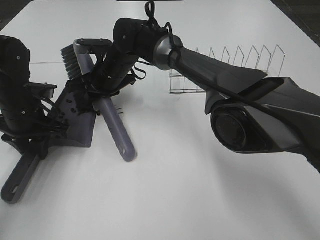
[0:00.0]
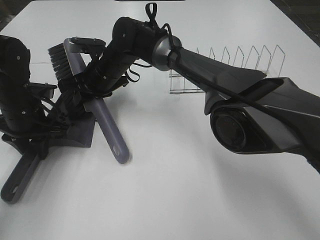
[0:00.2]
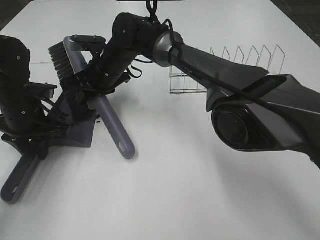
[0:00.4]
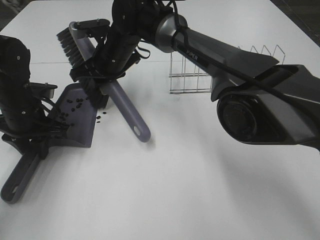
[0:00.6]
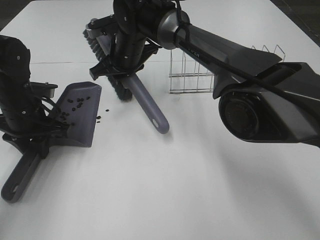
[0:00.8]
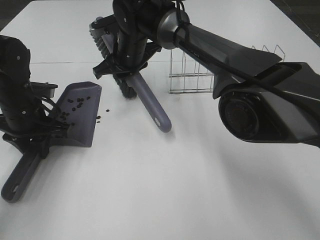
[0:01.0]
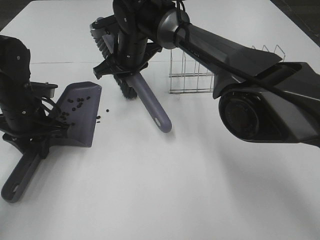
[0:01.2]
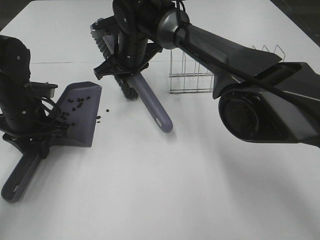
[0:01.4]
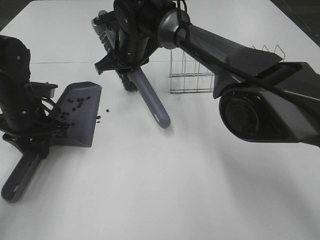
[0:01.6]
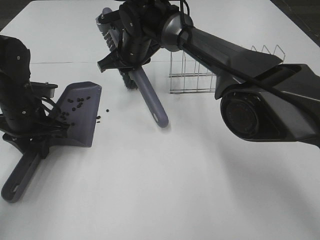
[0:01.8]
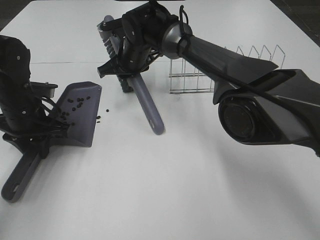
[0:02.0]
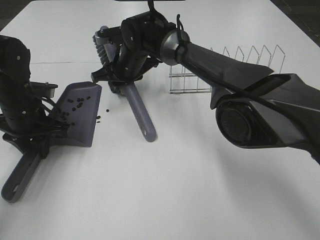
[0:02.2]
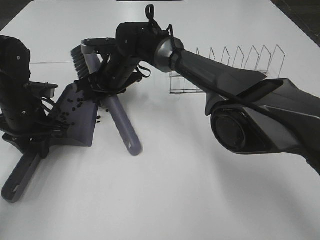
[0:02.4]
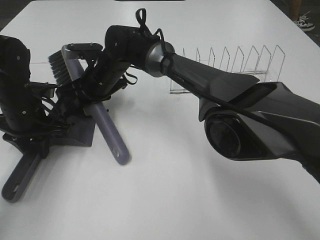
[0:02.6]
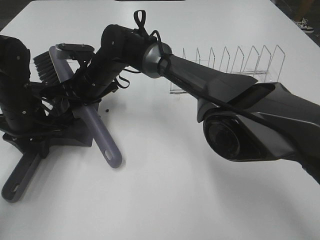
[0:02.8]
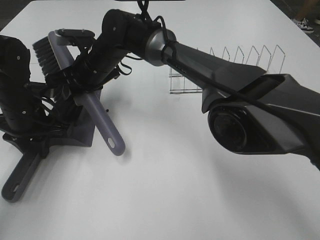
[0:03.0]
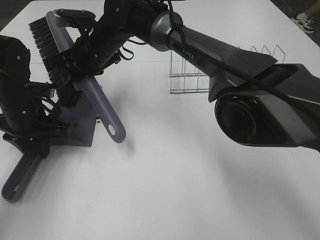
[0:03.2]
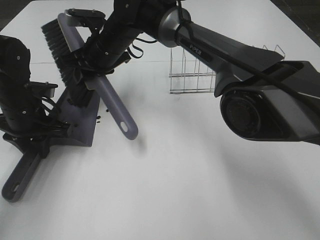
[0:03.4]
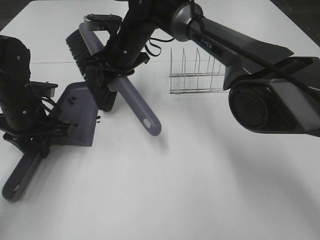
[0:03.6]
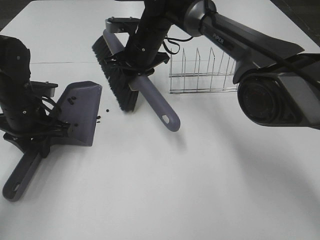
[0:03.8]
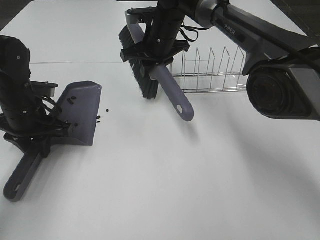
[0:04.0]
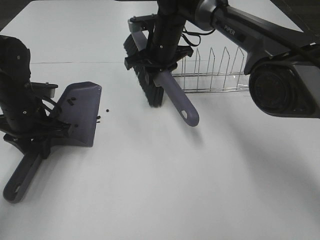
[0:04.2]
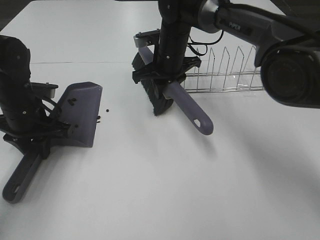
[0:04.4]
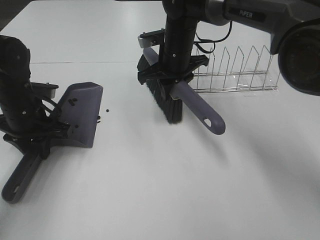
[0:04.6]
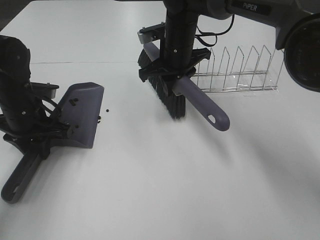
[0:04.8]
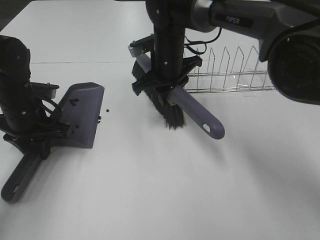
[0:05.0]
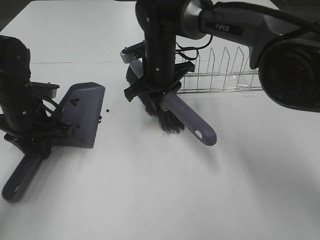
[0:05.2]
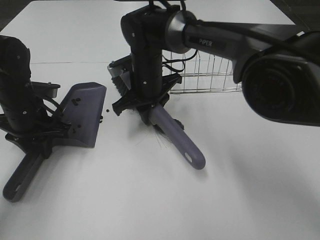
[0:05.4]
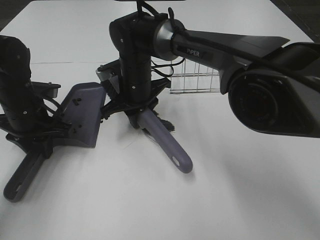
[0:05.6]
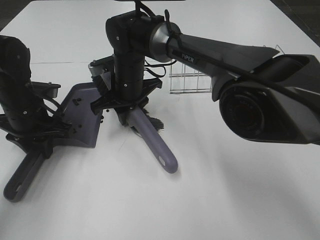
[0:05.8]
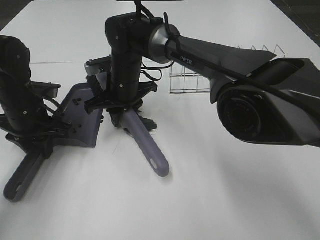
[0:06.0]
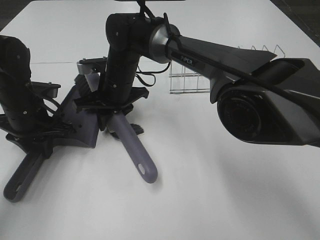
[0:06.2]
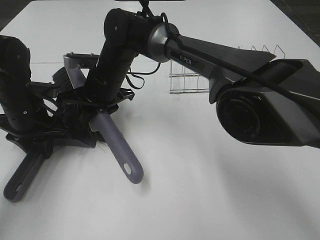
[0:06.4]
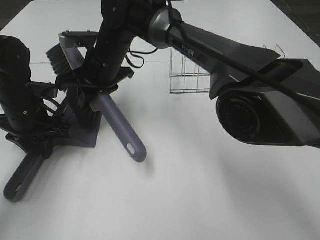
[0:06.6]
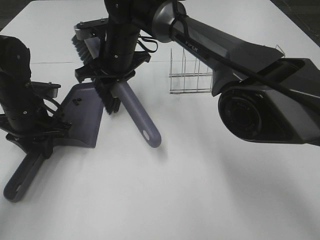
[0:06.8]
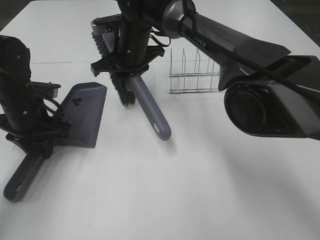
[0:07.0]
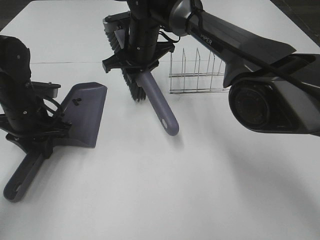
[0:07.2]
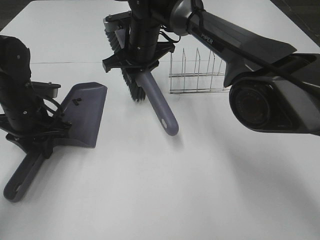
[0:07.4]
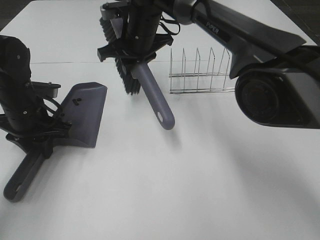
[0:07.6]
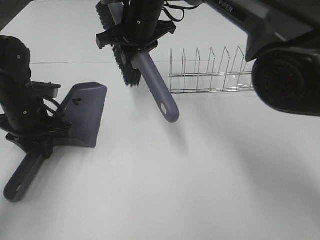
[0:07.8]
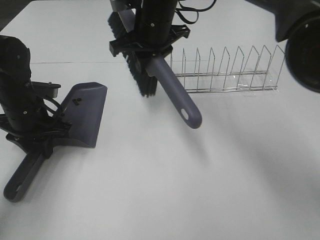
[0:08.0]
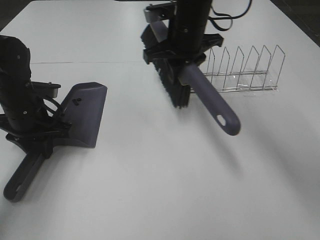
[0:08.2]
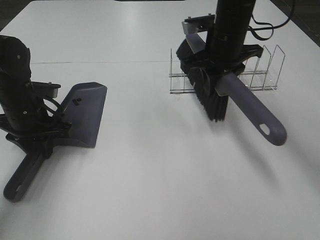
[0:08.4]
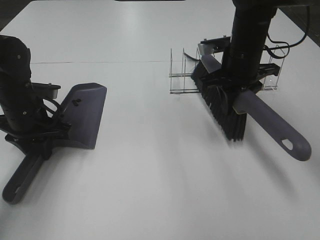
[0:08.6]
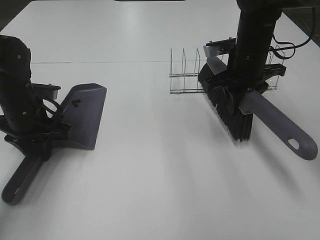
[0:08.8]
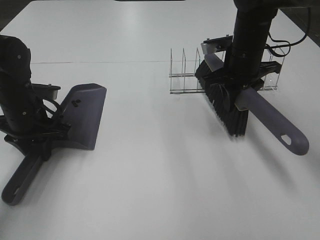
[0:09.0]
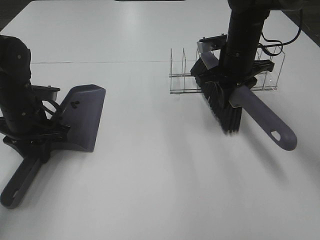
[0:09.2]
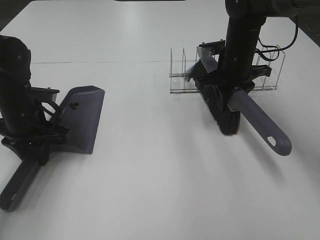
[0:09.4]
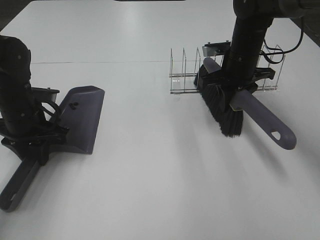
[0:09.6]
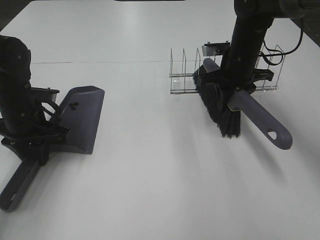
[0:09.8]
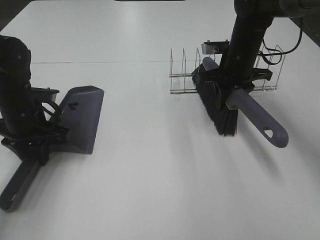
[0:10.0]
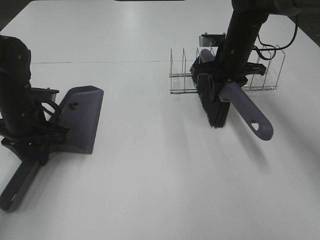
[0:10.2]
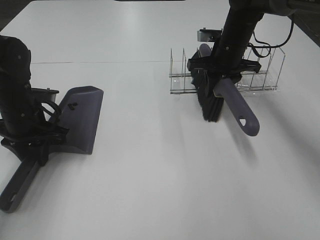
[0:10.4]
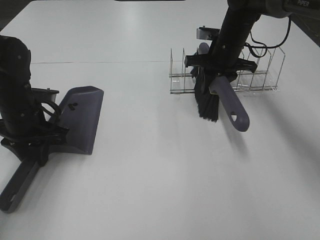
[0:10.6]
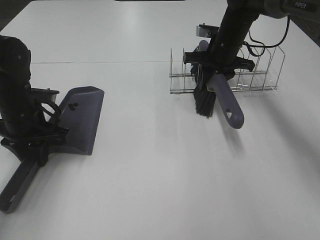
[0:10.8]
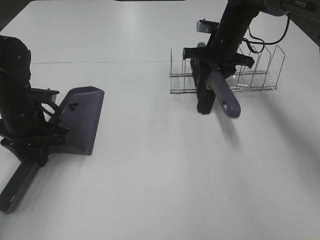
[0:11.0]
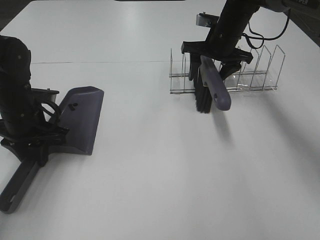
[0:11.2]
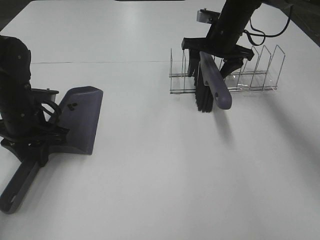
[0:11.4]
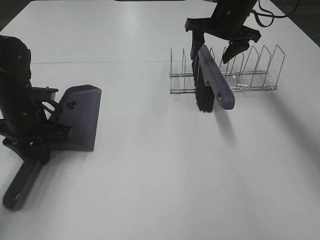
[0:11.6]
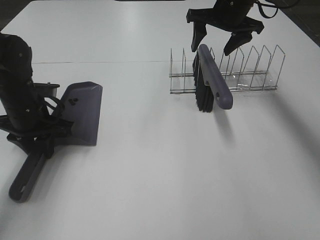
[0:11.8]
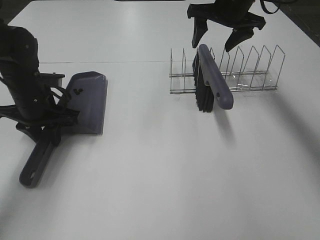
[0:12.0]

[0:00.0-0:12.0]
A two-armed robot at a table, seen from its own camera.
Task of the whole recording: Sweep Coffee Bean.
Step, 0:00.0 to 0:06.4: Right hand:sweep the coffee beans into the dustpan.
Step, 0:06.6 to 0:11.0: Right hand:place the broom on the rack.
0:00.0 to 0:01.6: The right gripper changes place by approximately 5 cm.
0:01.6 to 0:03.0: The right gripper is displaced to the left by some 5 cm.
0:03.0 to 0:04.4: The right gripper moves to the right, approximately 15 cm.
0:04.4 to 0:06.0: The right gripper heads to the left, covering some 10 cm.
0:06.0 to 0:07.6: The right gripper is displaced upward by some 10 cm.
0:07.6 to 0:09.0: The right gripper travels to the right by roughly 20 cm.
0:09.0 to 0:10.4: The right gripper moves forward, approximately 5 cm.
0:10.4 to 0:12.0: The right gripper travels upward by roughly 10 cm, and opens up.

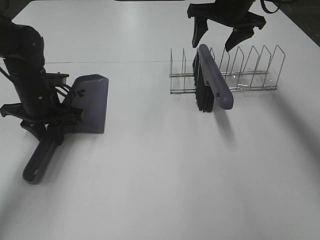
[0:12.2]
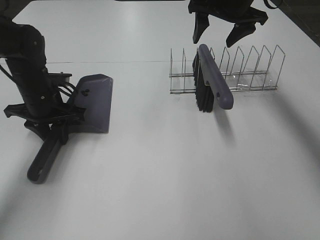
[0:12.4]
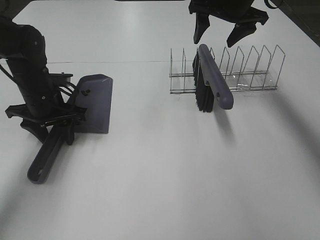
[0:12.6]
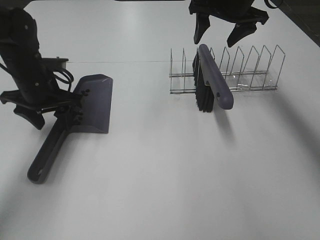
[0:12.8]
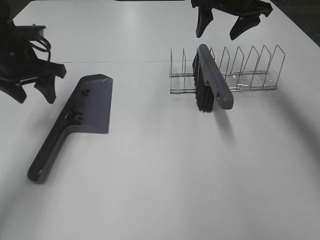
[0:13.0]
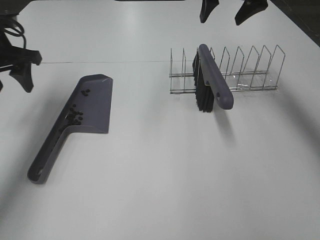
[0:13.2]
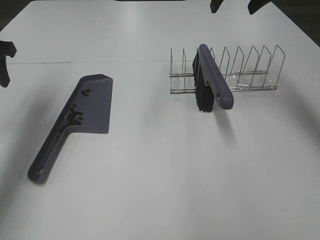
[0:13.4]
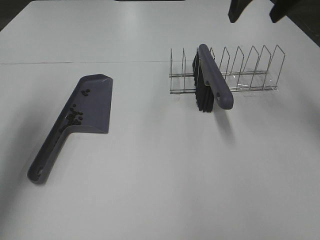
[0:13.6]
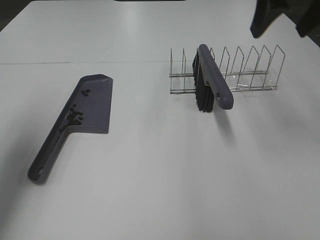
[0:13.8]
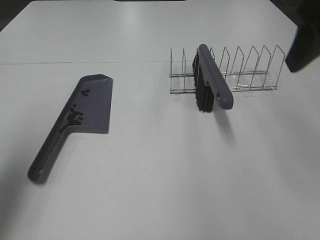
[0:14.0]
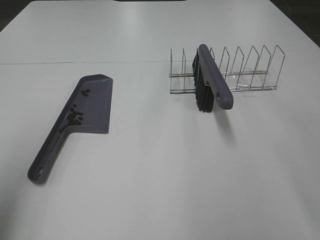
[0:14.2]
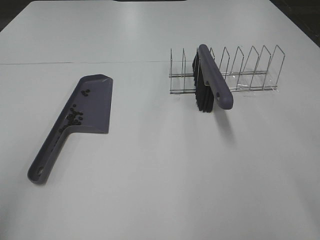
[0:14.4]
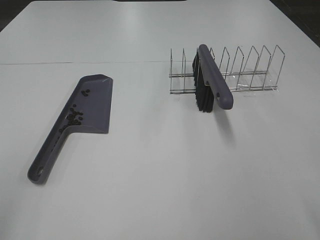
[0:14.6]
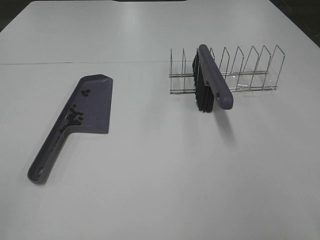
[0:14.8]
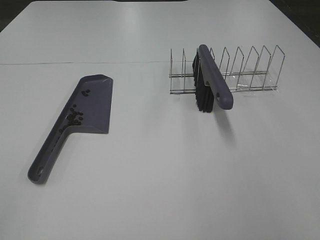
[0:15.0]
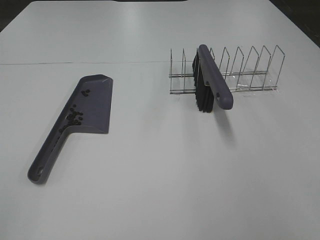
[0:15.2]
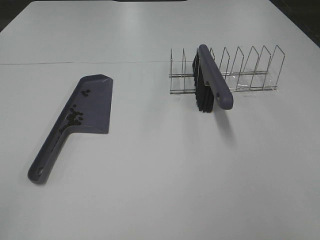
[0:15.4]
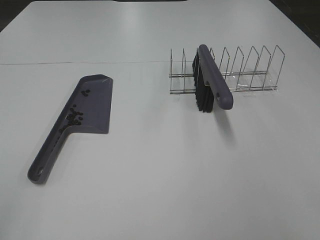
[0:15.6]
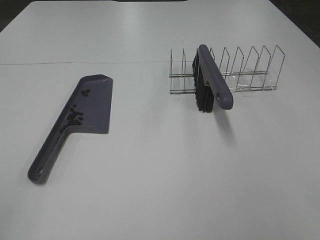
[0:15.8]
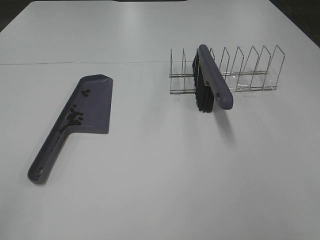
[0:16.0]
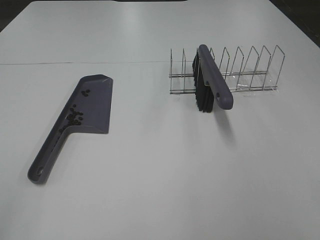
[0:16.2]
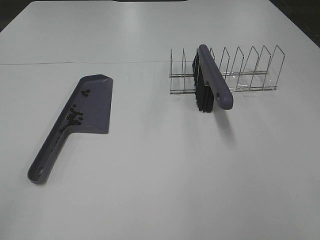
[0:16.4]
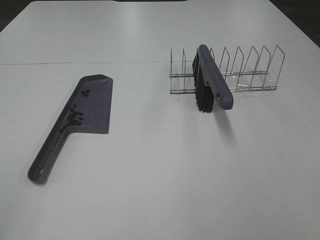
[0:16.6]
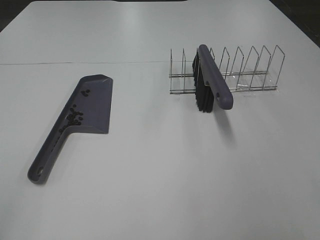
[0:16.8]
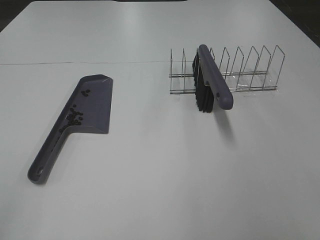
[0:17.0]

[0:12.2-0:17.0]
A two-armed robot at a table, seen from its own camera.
Task of the whole recording: Sweep Coffee Bean.
0:12.2 to 0:13.8: The right gripper moves backward and upward, approximately 20 cm; the left gripper goes roughly 25 cm upward, backward and to the left, and opens its fingers.
0:13.8 to 0:15.4: Both grippers travel together backward, roughly 30 cm.
